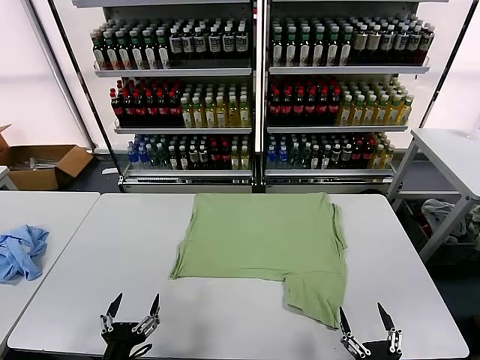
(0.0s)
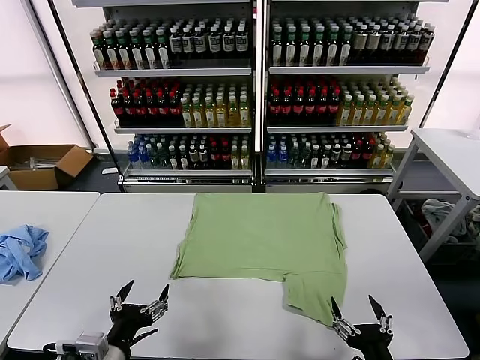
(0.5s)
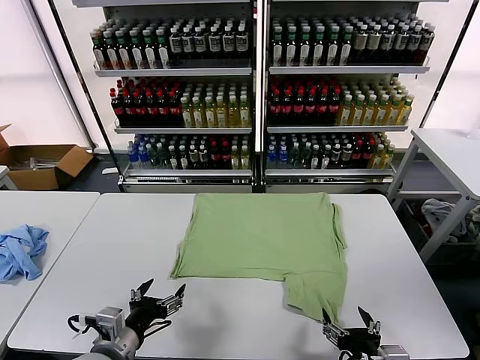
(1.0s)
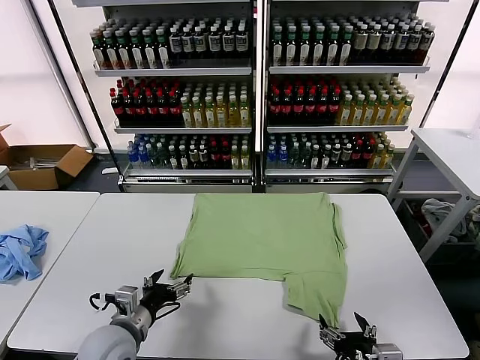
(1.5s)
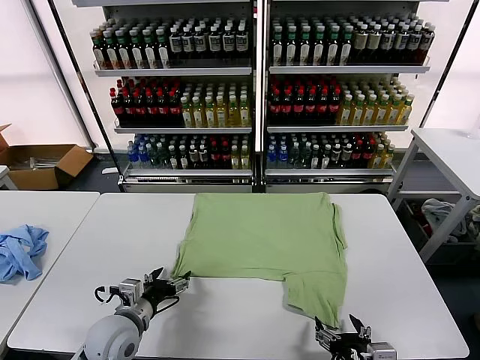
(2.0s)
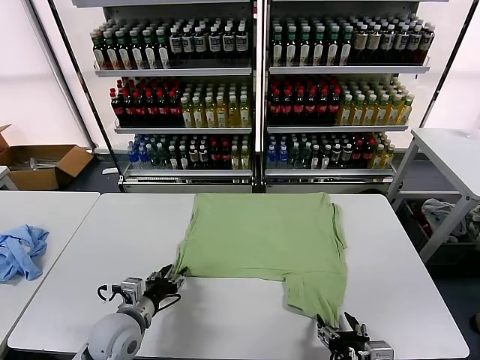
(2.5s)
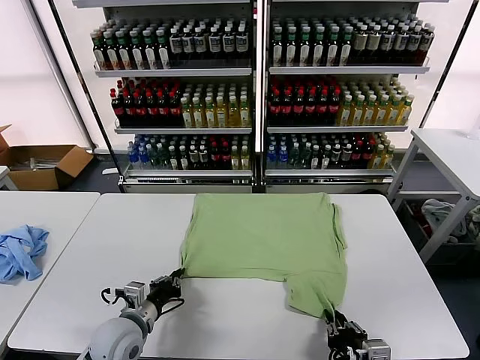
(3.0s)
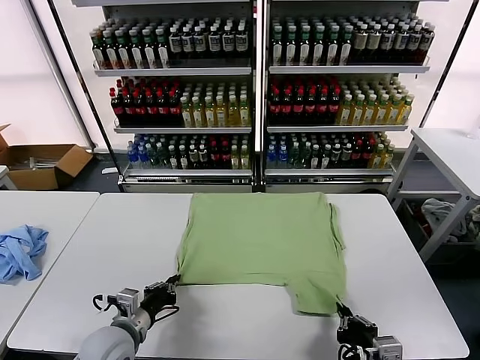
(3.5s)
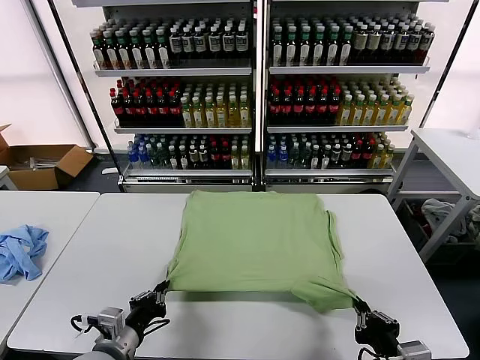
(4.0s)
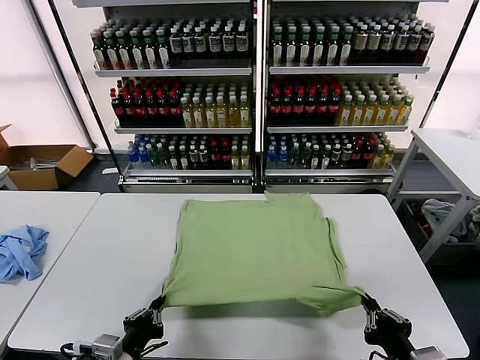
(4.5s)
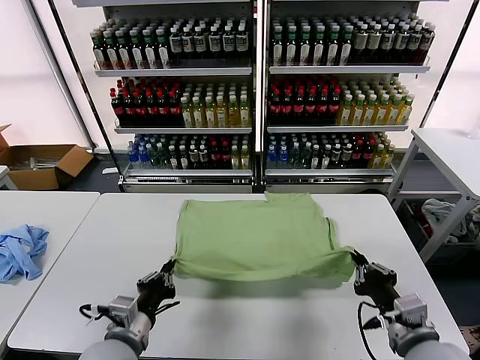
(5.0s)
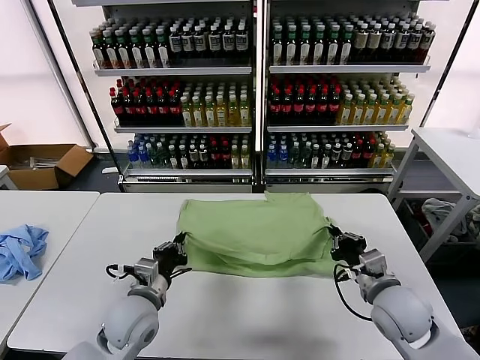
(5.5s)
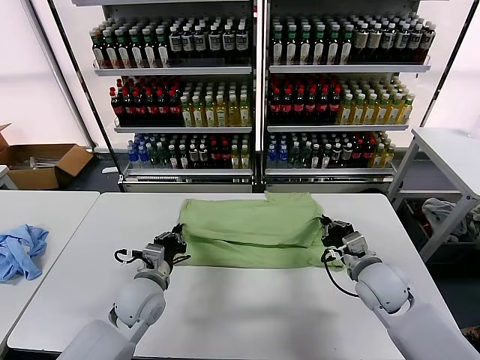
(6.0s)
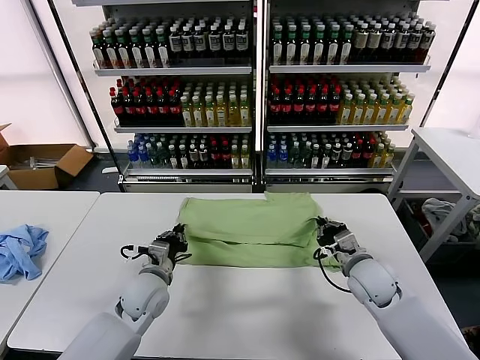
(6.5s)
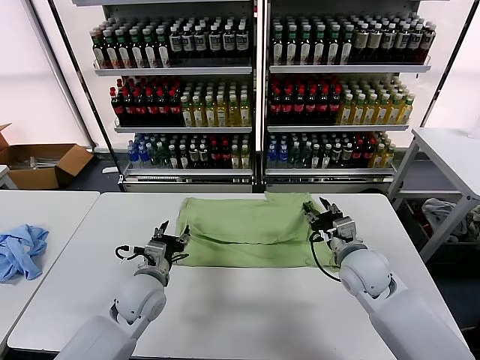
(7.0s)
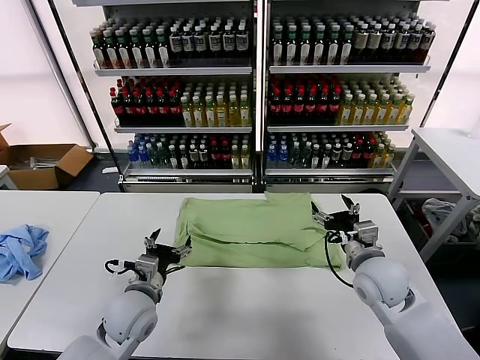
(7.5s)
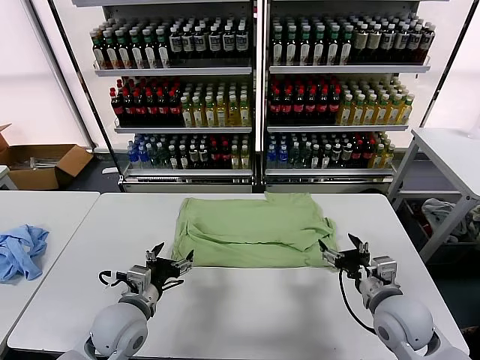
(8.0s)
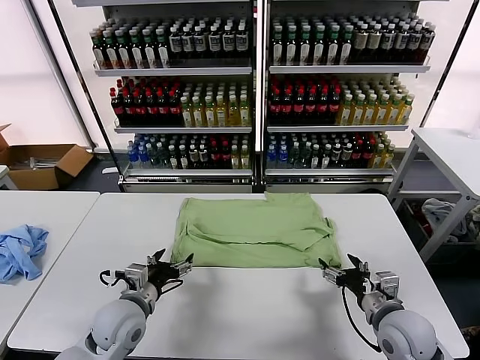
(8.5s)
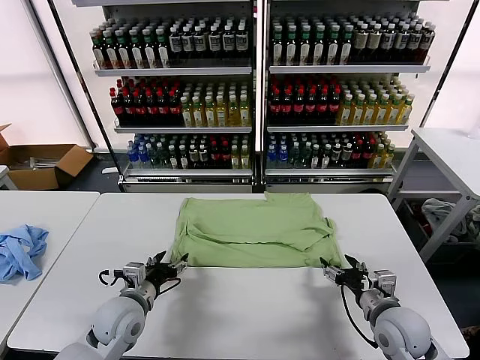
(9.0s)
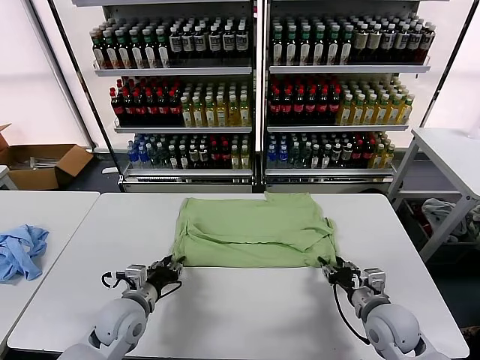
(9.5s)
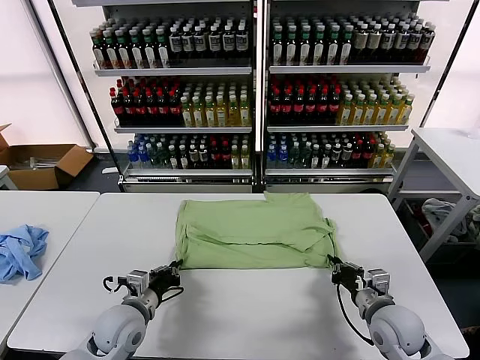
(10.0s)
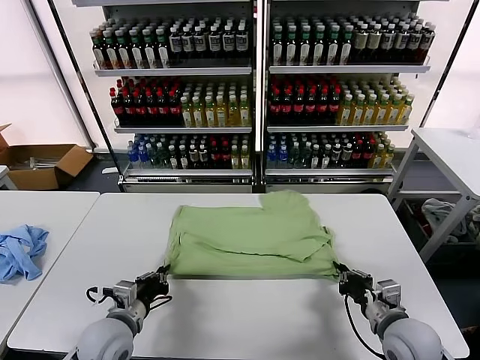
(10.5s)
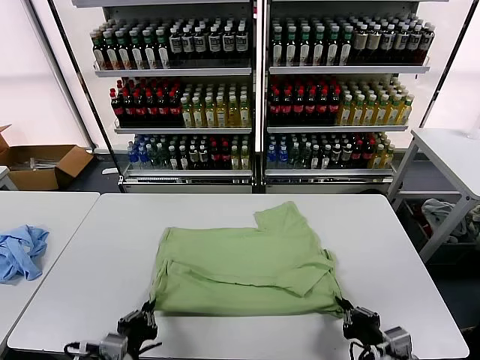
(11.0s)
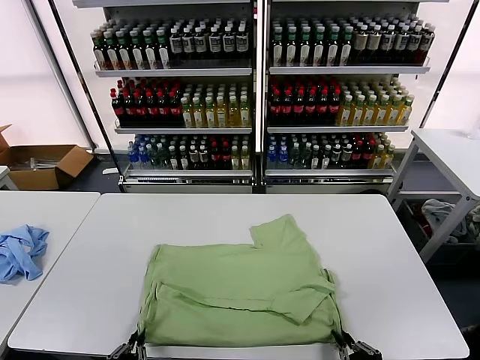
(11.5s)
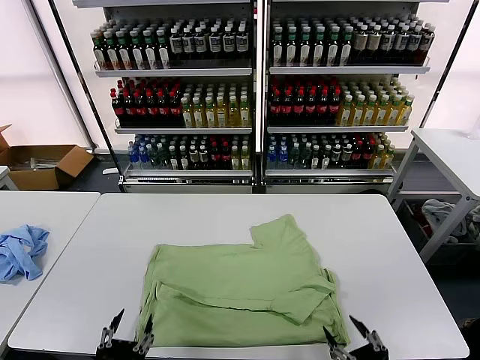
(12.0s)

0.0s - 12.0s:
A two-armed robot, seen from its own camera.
Task of the whole recording: fold and organize the clothes.
Step, 0.0s - 3.0s: use both grippers simultaneously to clamp the lower edge of the clothing fabric.
Step, 3.5s - 7.0s: use both grippers to drag the lower edge of the fabric forward and fold it over the upper edge.
Step, 7.5s - 11.5s: Drag the clothes downward with both gripper.
2.0s - 4.0s: The left gripper is displaced backward by roughly 10 cm, and closes; the right gripper shifts about 5 cm upward, and closes up.
4.0s - 6.0s: The right gripper is displaced forward by about 25 cm. Meanwhile the left gripper heads forward, covering approximately 15 cm.
6.0s - 8.0s: The right gripper is displaced backward by some 10 cm, and opens up. The left gripper travels backward by about 5 cm, and opens.
8.0s - 10.0s: The left gripper closes its fingers. Meanwhile the right gripper closes up.
10.0s - 12.0s: The two grippers go about 20 cm backward. The right gripper opens its fingers, while the left gripper opens up.

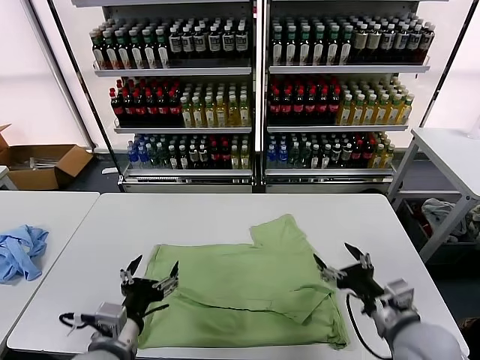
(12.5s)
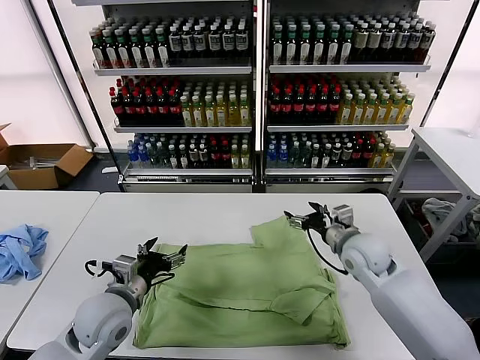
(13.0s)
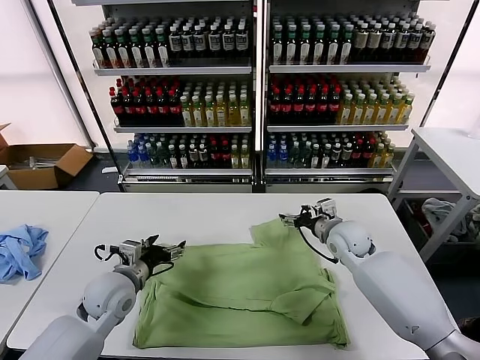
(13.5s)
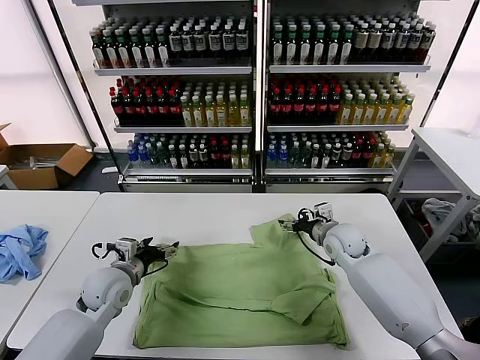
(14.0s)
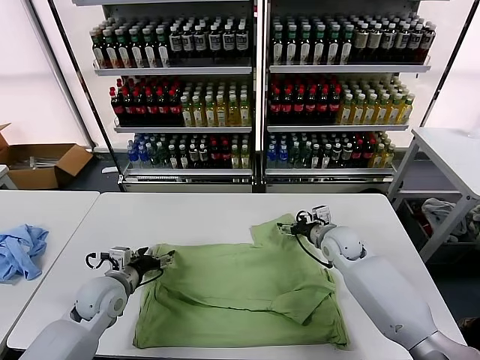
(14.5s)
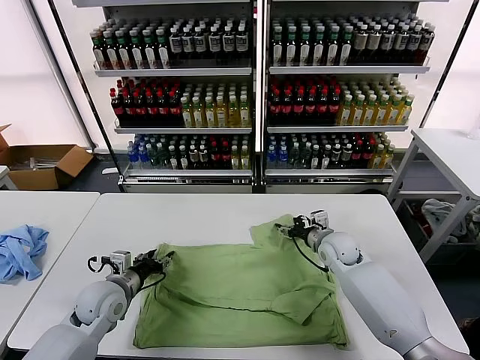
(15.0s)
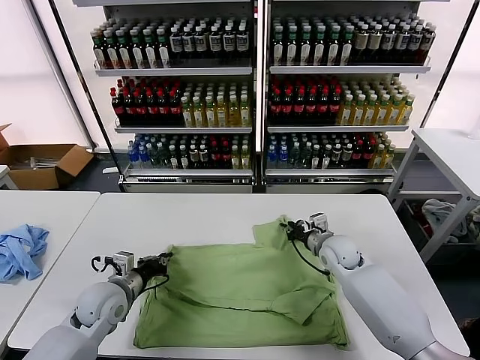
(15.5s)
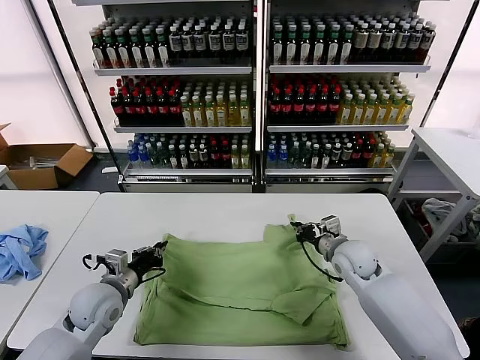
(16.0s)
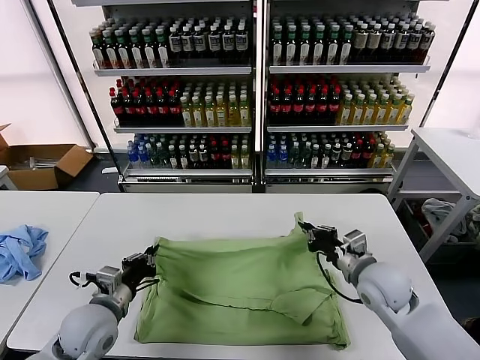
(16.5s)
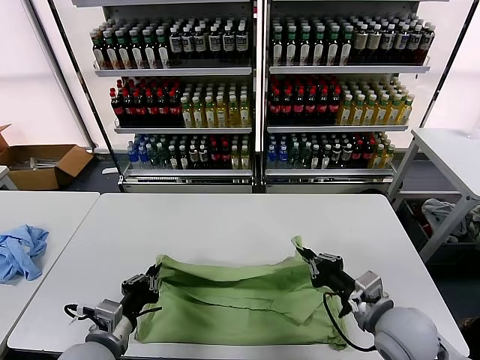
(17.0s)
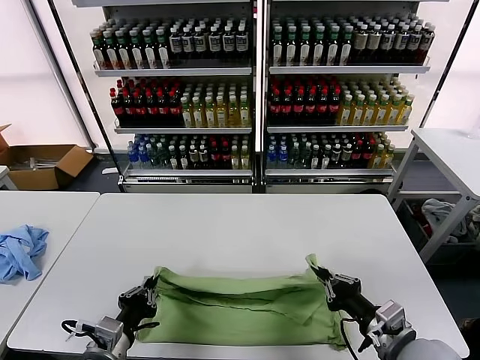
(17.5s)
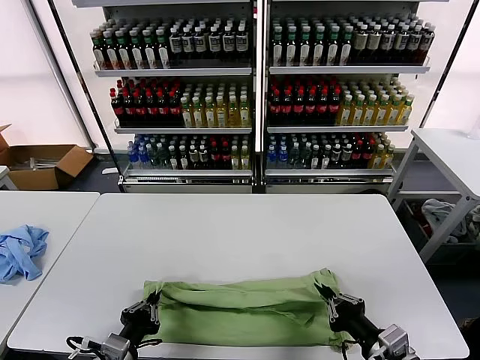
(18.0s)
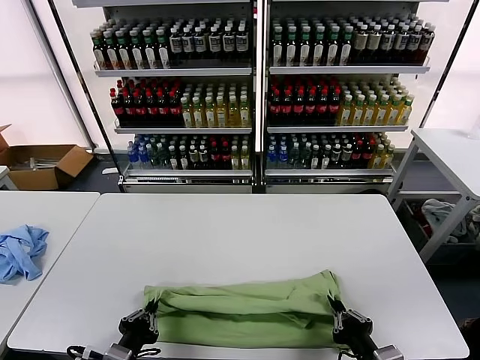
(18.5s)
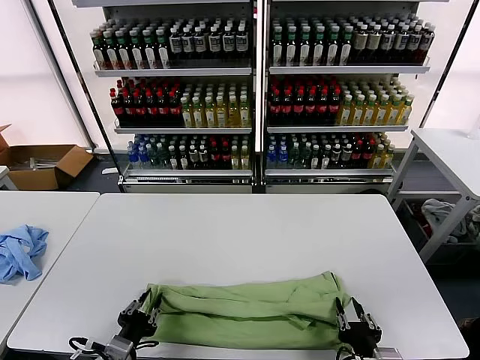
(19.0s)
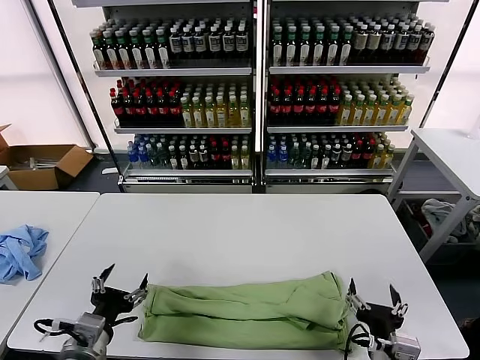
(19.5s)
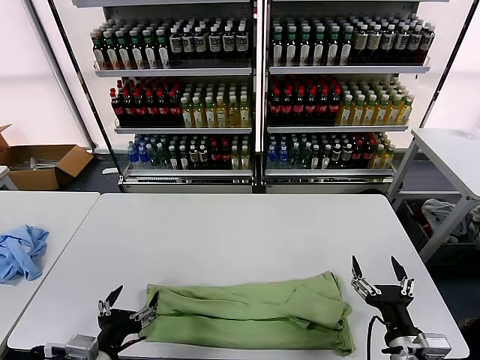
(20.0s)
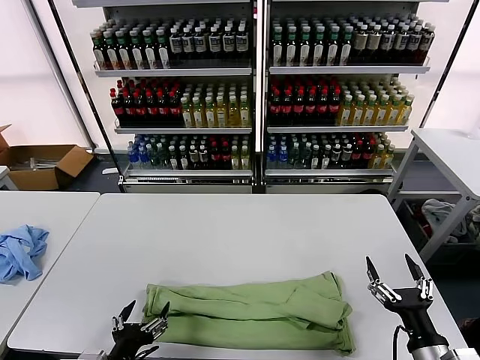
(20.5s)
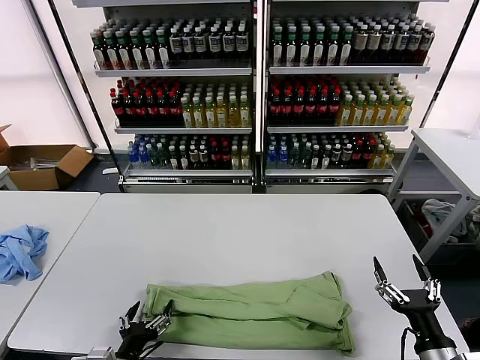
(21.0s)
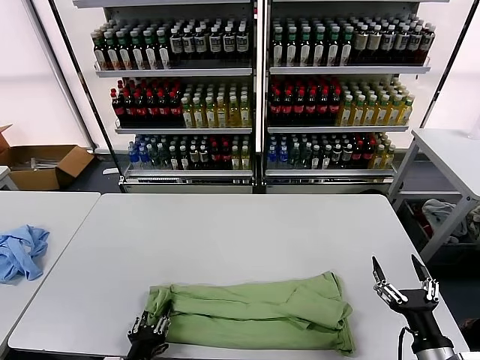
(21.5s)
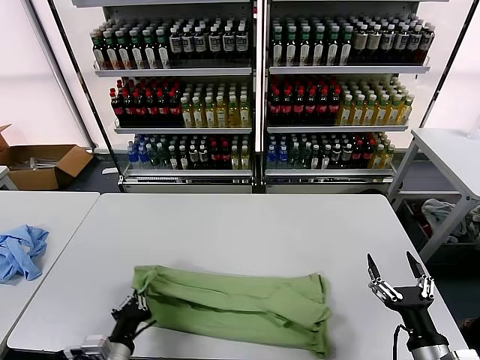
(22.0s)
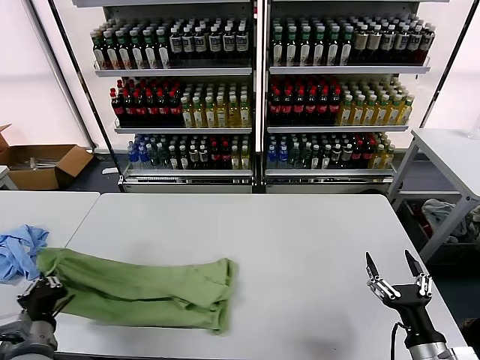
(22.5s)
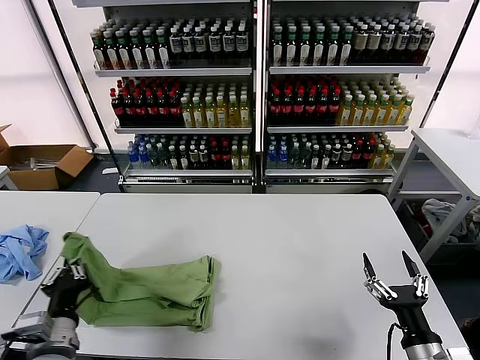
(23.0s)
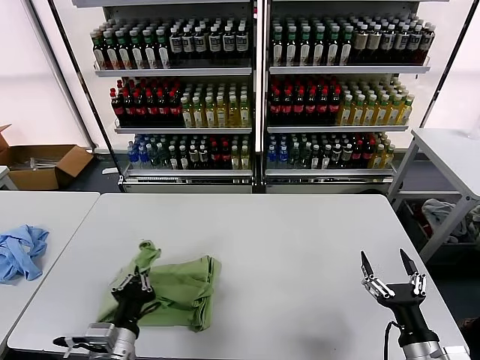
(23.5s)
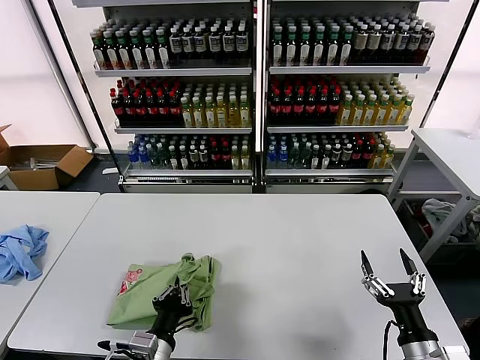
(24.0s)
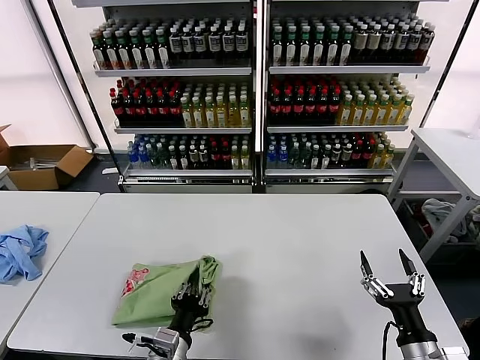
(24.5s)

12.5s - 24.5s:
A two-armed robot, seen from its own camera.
Task of the whole recording: fold and organize the clothes.
Step, 12.5s - 15.5s: use both grippers simultaneously to clamp the upper edge of the clothing fabric.
Step, 16.0s - 19.0s: use both grippers to drag the upper edge of the fabric backward and fold it over the lower edge.
Step, 19.5s - 21.5s: use the left gripper to clamp the left edge of the fabric.
12.5s - 14.5s: The left gripper is displaced forward, to the left and downward by about 20 cm. The right gripper shifts approximately 20 cm forward.
14.5s - 16.5s: The left gripper shifts about 10 cm backward, and closes up. The right gripper goes approximately 15 cm backward, and closes up.
16.5s - 18.5s: The left gripper is displaced backward by some 15 cm; the right gripper travels backward by some 20 cm.
18.5s - 20.5s: The left gripper opens its fingers; the right gripper goes about 10 cm to the right, and opens its fingers.
20.5s - 22.5s: The left gripper moves to the left and forward, approximately 10 cm, and closes up.
22.5s - 24.5s: The left gripper heads to the right, covering roughly 20 cm.

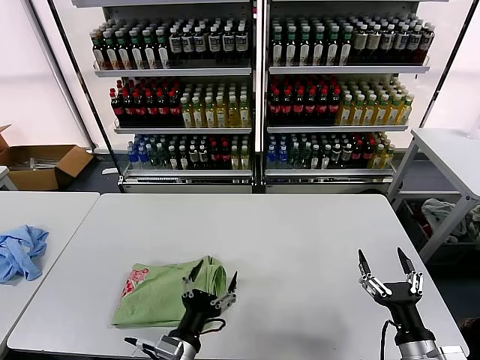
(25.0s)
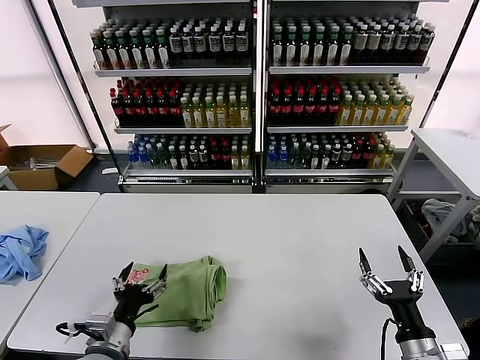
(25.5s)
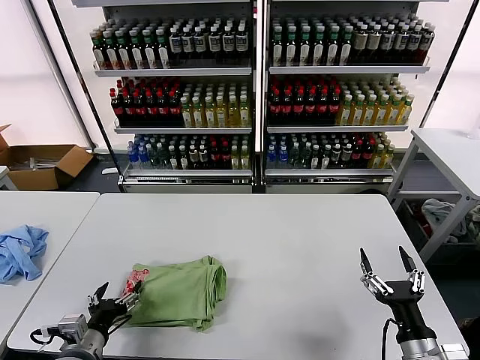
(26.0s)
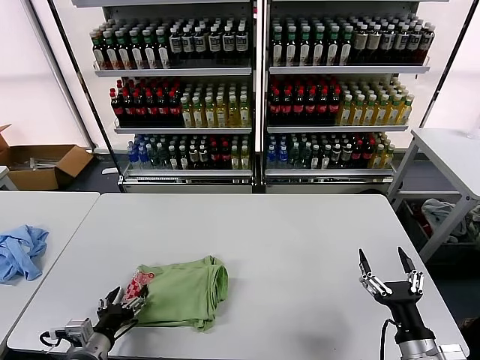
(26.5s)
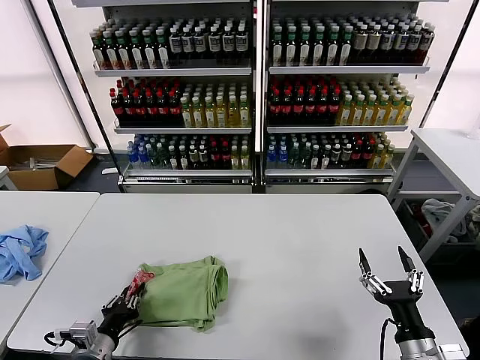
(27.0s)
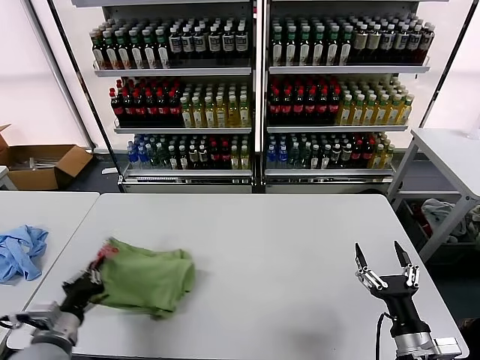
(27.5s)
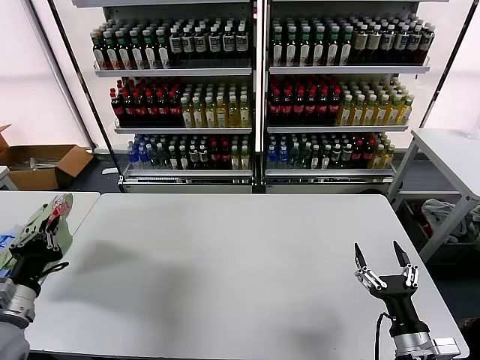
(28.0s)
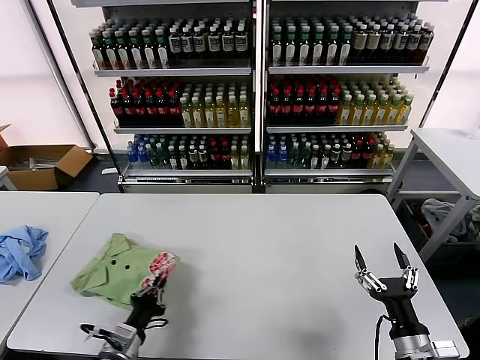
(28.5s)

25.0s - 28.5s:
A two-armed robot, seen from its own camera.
Task of the whole recording: fold and organize the clothes.
25.0s - 27.0s: The left gripper is displaced to the left by some 15 cm, and closes its fingers.
27.0s - 28.5s: The left gripper travels upward and back again, some 15 cm each way.
